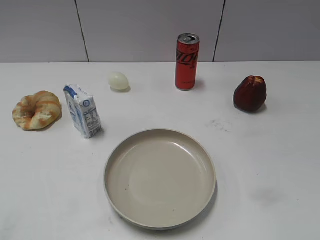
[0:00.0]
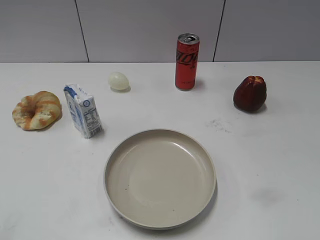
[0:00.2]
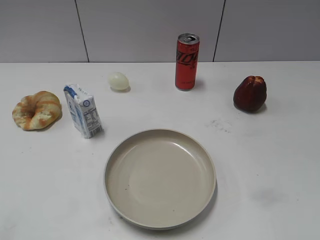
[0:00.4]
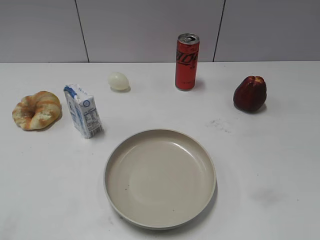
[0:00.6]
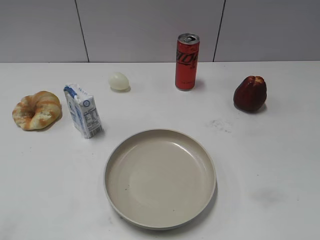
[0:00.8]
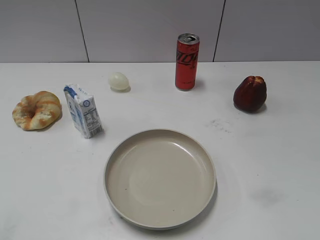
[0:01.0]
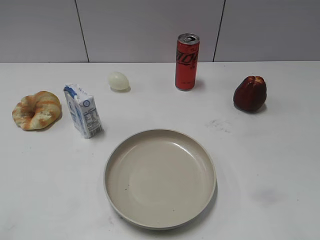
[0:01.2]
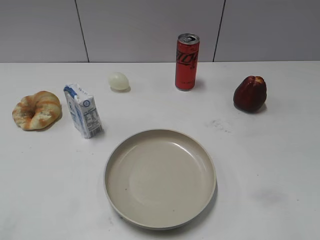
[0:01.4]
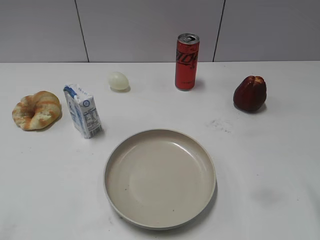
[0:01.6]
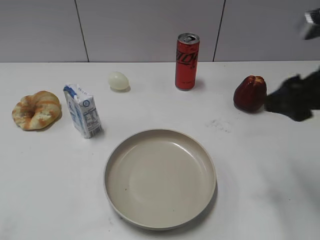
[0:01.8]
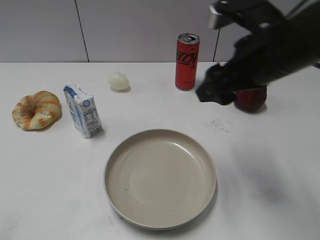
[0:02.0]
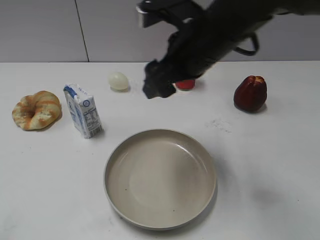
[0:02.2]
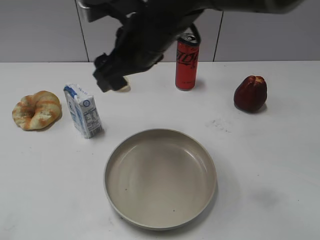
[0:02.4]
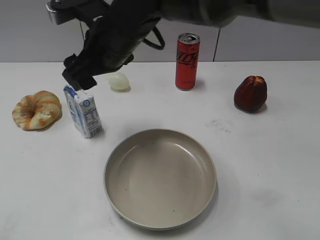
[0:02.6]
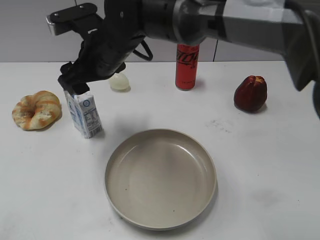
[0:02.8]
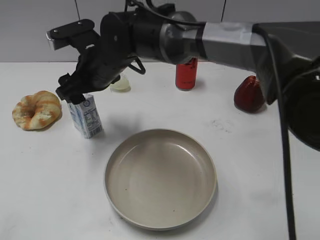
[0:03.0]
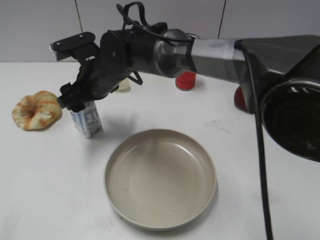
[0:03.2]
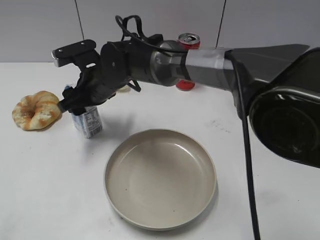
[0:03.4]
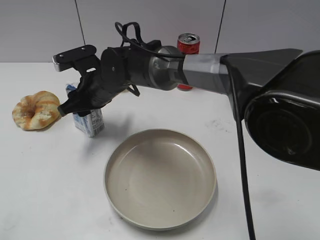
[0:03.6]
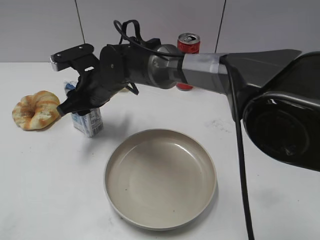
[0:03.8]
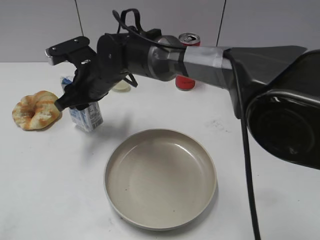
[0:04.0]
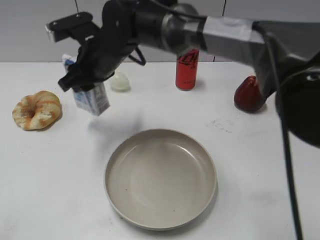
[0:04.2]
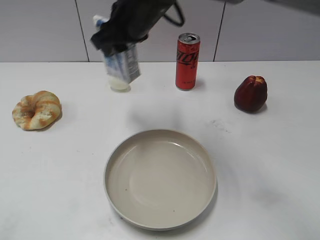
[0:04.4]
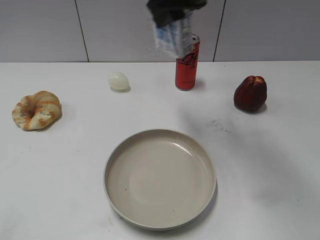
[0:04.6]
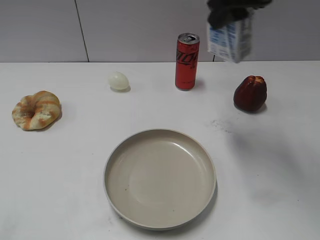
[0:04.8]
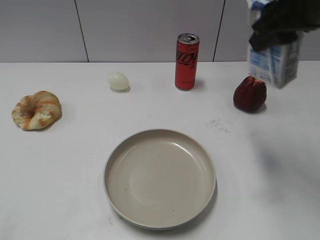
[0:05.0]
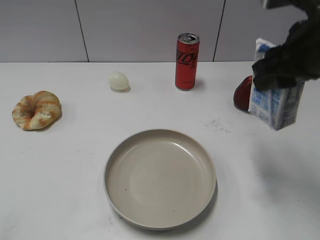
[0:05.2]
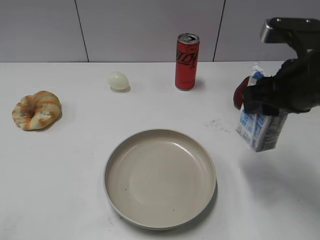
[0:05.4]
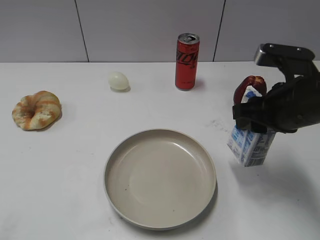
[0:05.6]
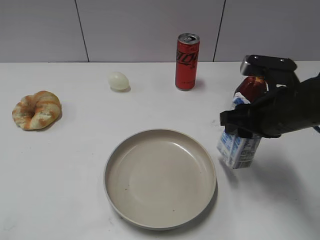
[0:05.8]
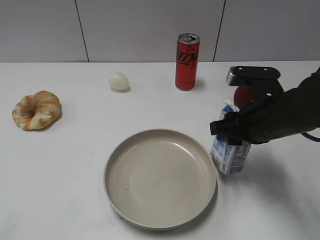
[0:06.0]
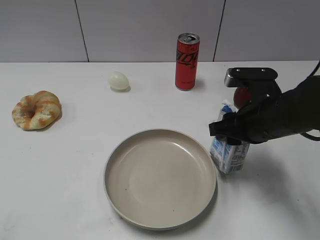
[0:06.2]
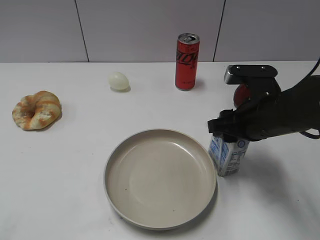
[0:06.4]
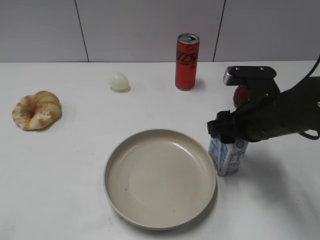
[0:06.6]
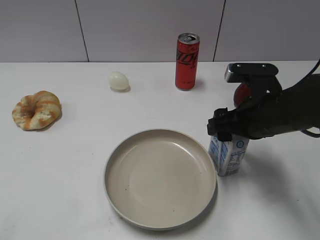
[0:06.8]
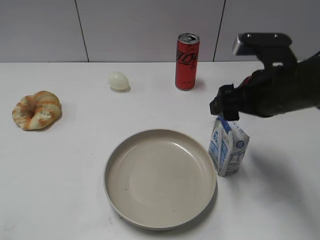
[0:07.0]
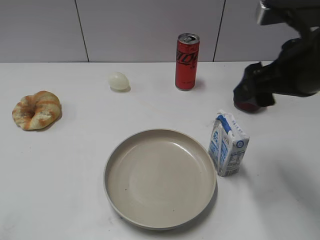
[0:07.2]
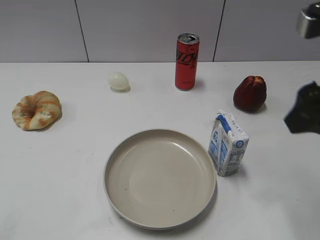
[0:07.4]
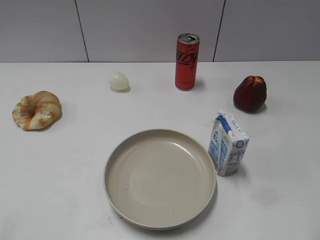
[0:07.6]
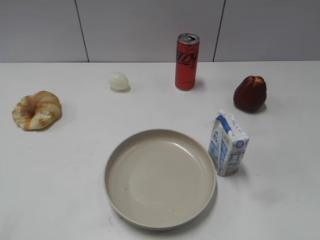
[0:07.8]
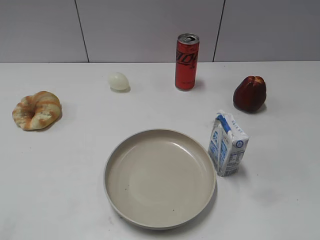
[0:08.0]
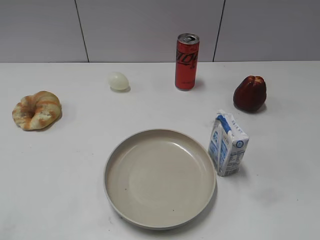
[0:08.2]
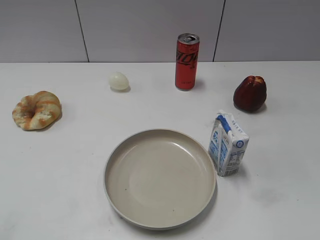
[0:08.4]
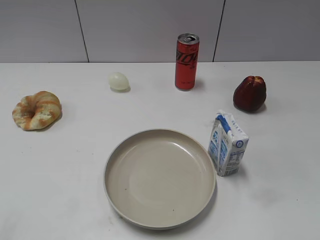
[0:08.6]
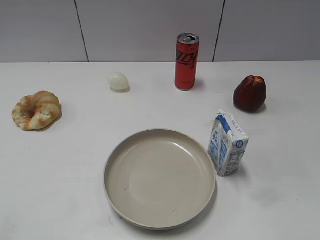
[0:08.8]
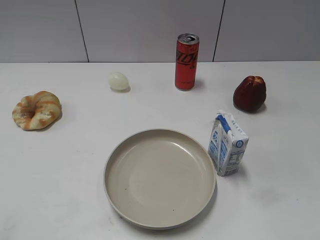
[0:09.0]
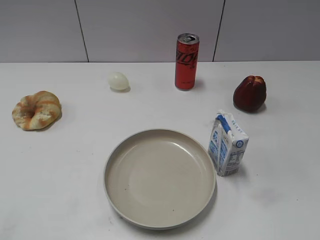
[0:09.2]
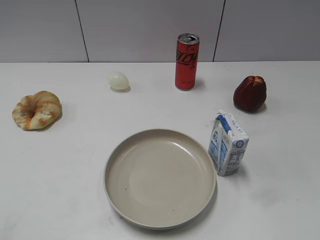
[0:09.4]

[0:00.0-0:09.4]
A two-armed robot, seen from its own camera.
Step, 0:00.8 to 0:03.6: Grasp the milk with right gripper.
Step, 0:03.8 to 0:06.8: Place the milk on the table with right gripper.
0:01.6 to 0:03.2: The right gripper is displaced to the left and forward by some 40 cm.
0:03.2 to 0:04.8: The right gripper moves to the right and upward, some 30 cm, and closes.
0:04.8 to 0:06.2: The right gripper travels downward by about 20 cm.
0:06.2 to 0:07.8: The right gripper moves backward, upward and to the right, about 20 cm, and opens its fingers.
